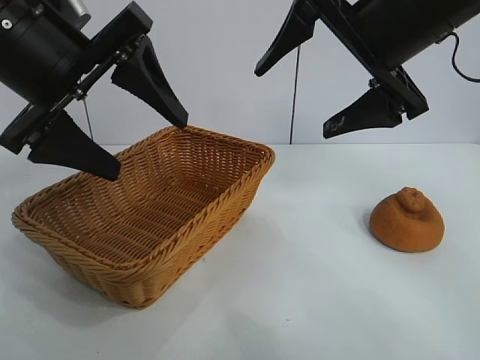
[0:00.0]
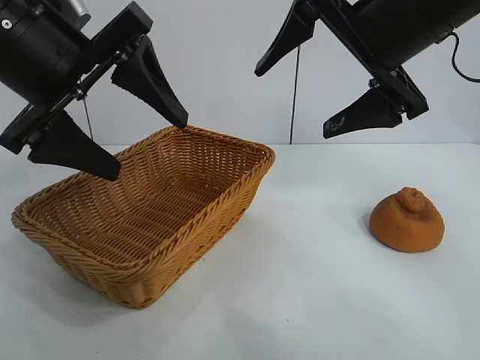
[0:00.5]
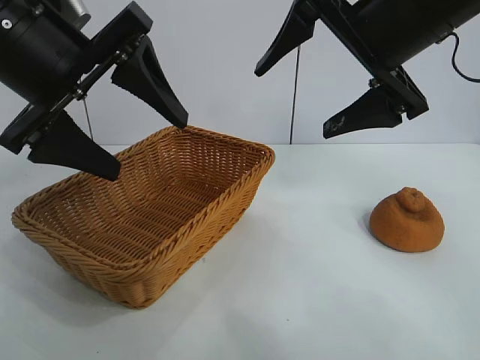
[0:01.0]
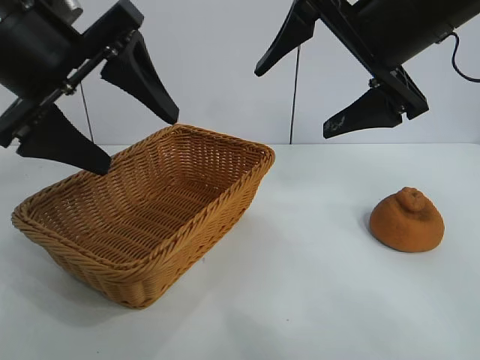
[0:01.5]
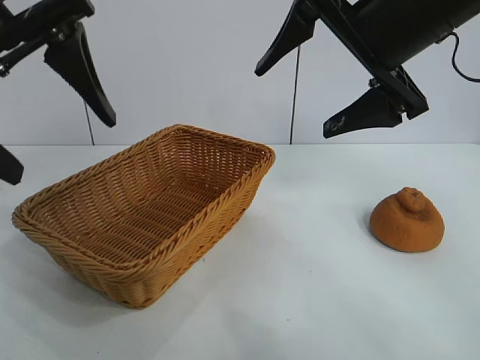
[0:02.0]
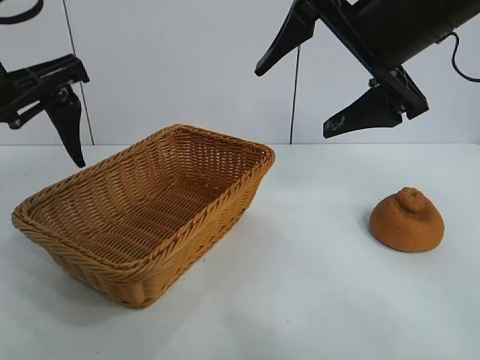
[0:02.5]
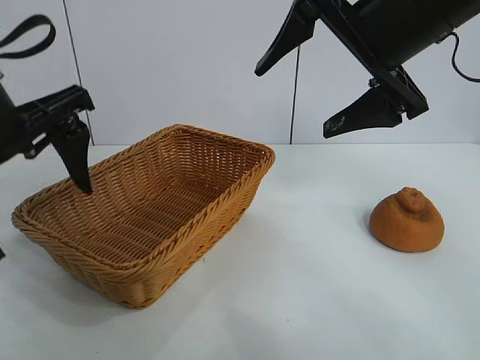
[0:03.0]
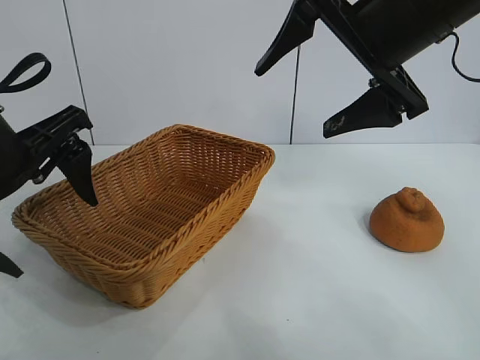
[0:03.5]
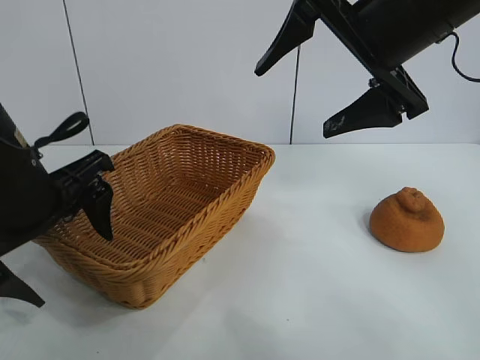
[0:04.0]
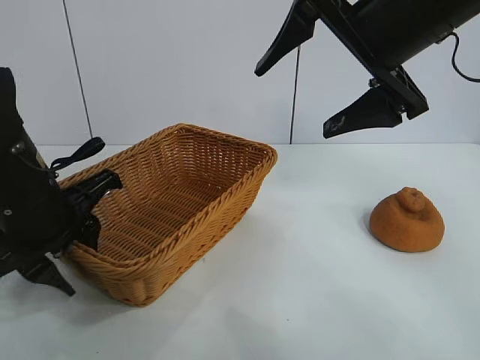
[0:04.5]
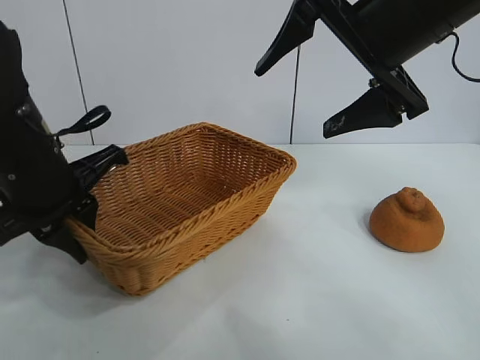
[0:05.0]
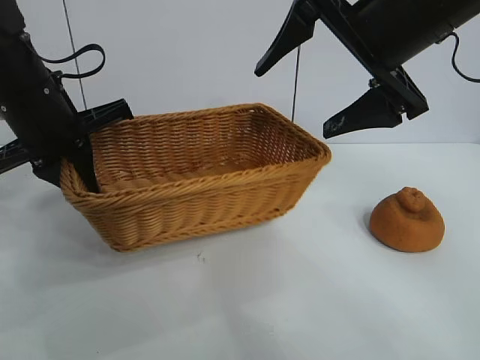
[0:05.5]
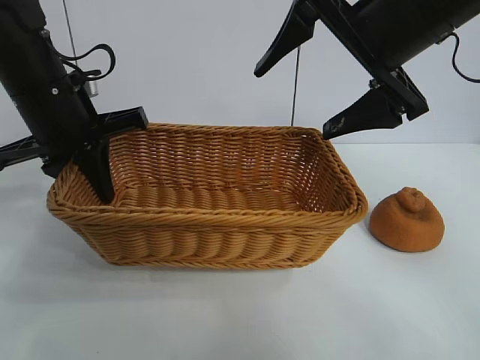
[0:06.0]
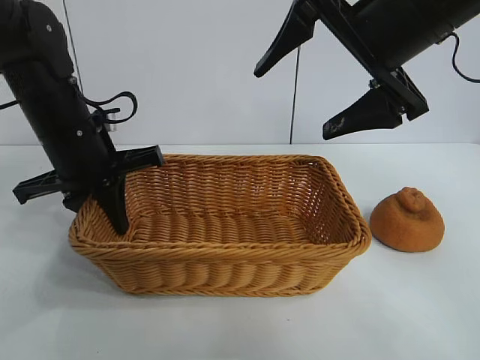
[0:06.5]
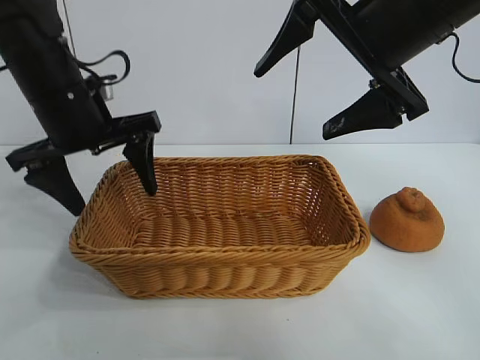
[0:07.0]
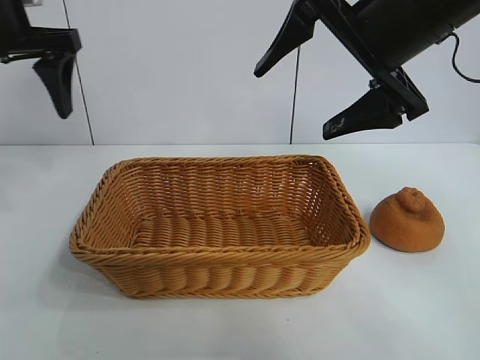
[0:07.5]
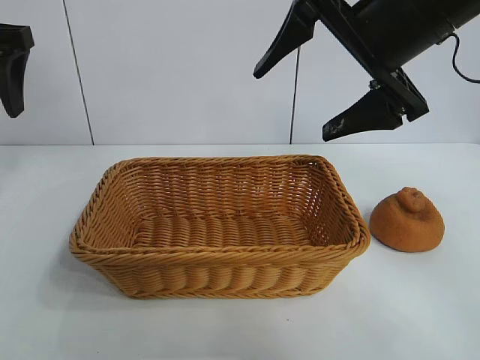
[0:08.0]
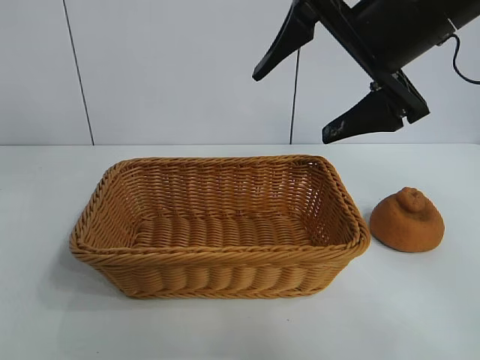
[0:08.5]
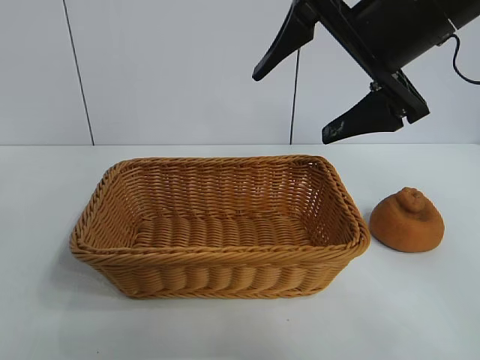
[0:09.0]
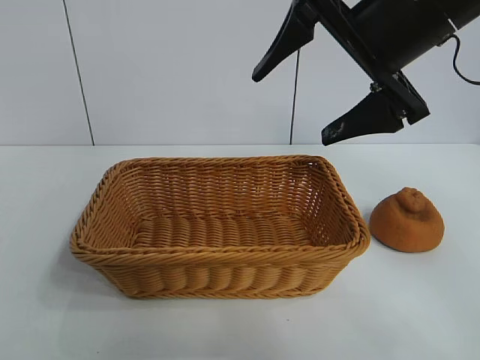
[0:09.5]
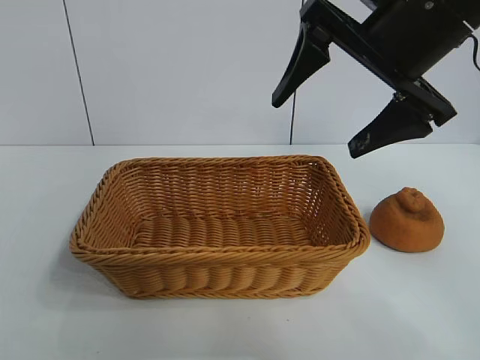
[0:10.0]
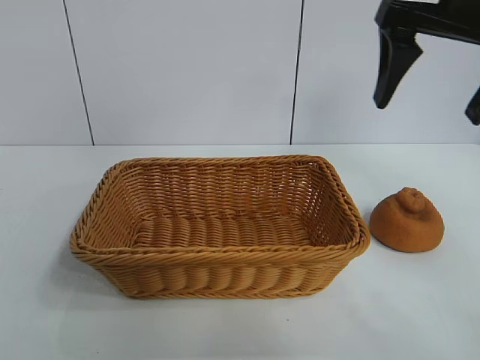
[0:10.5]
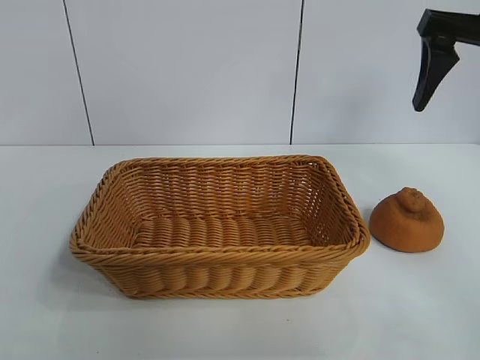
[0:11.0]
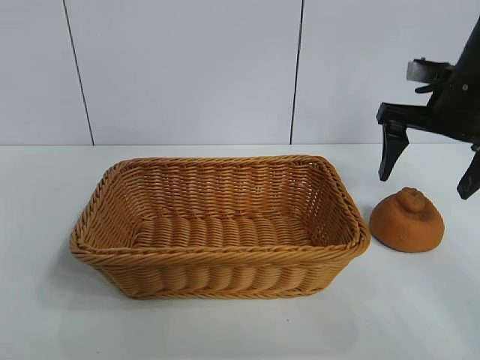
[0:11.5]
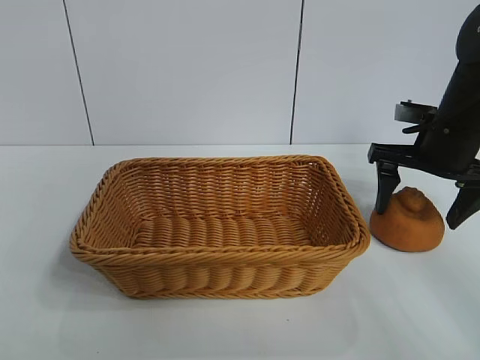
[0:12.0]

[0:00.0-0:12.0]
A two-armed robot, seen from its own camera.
Task of the whole recording: pick up the orange and put it into the basket.
Step, 0:01.5 to 0:04.5: Grasp the basket with left gripper.
Step, 0:05.0 to 0:07.0: Place the basket in the center of view with left gripper.

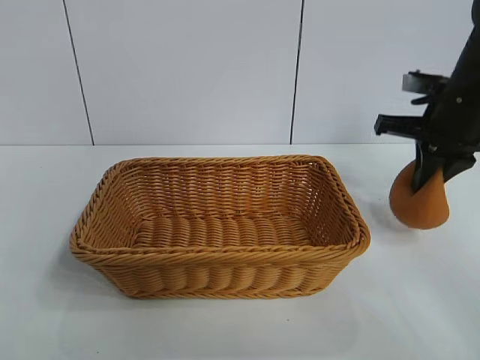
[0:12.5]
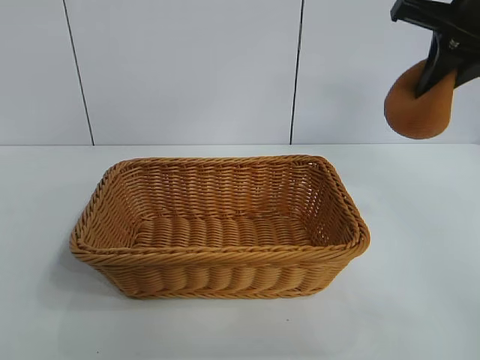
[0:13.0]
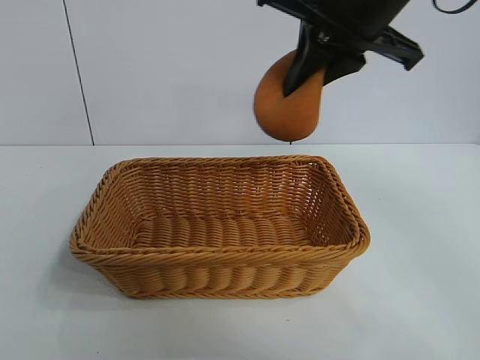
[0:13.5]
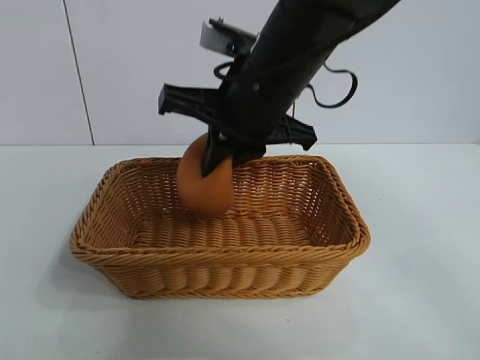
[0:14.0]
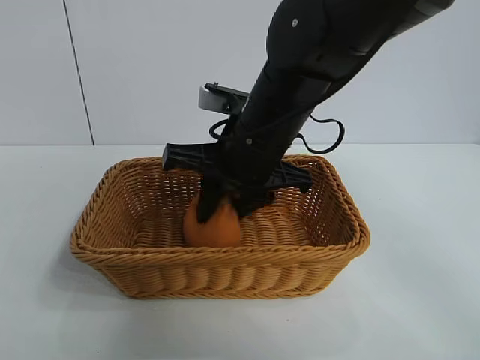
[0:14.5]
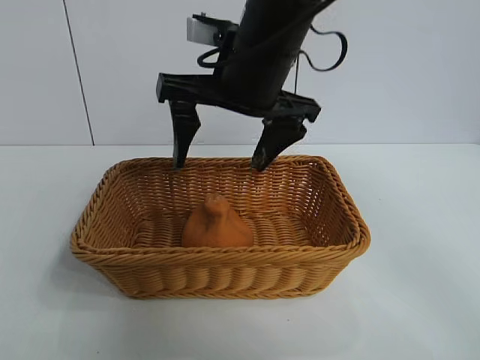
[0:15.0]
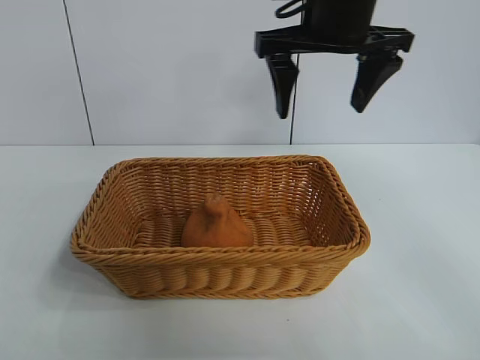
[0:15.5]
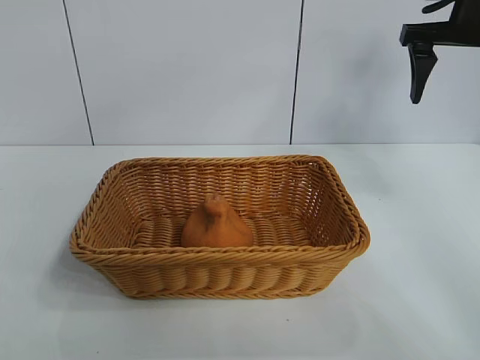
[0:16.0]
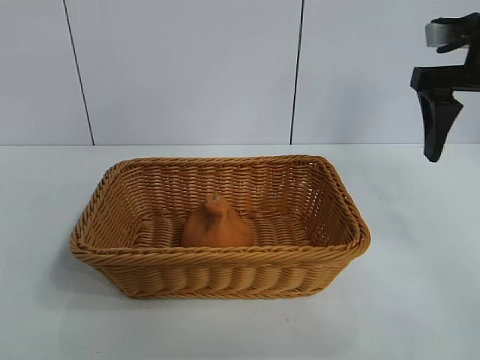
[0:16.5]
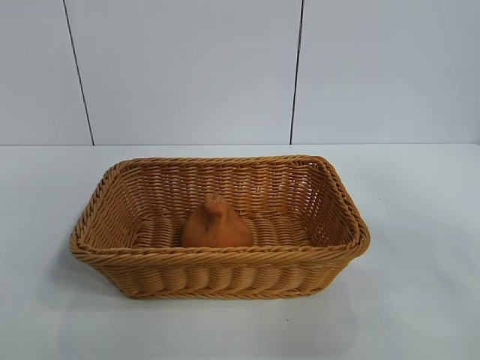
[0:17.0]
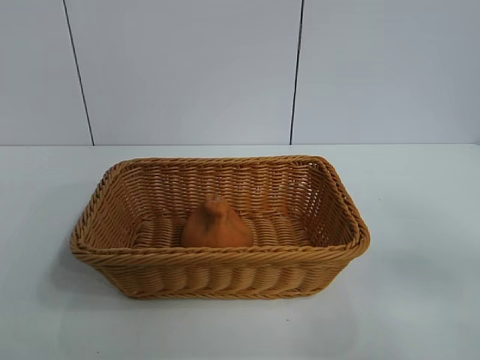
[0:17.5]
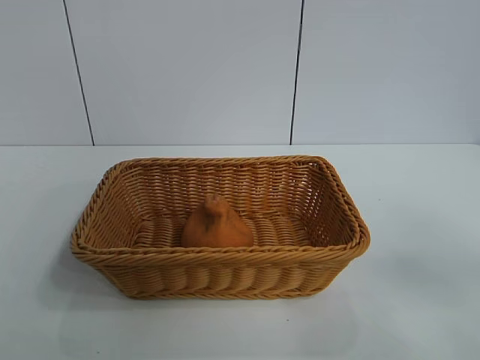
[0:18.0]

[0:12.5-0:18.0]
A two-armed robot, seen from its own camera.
Task of the whole recording: pick up the orange and put it into the basket.
Step, 0:12.5 to 0:15.0: Place the orange in the basket with right gripper.

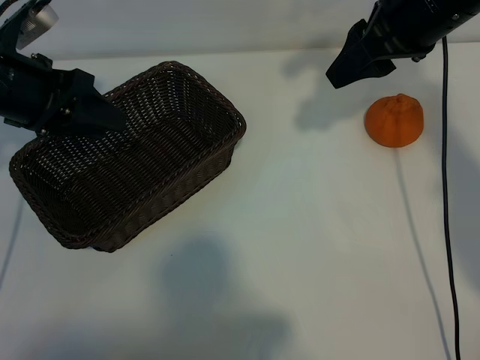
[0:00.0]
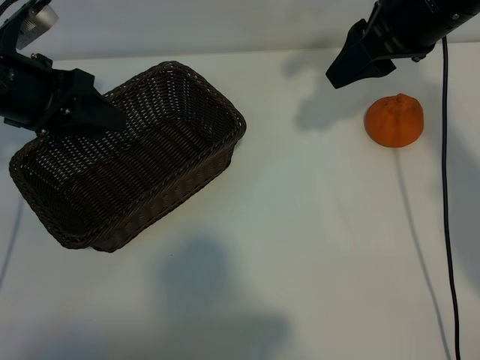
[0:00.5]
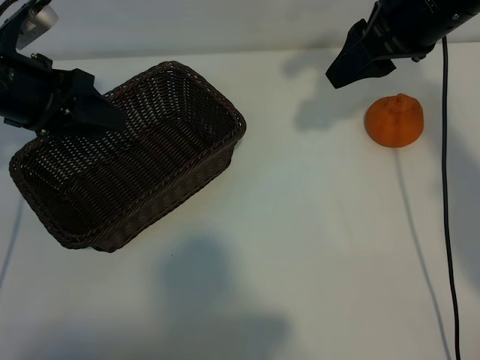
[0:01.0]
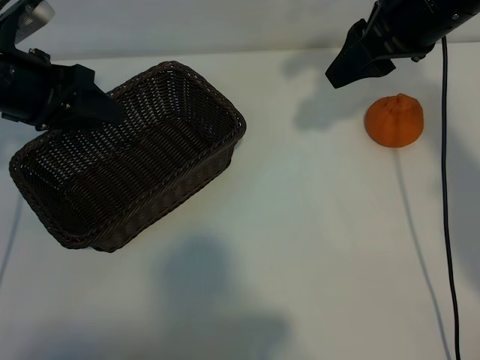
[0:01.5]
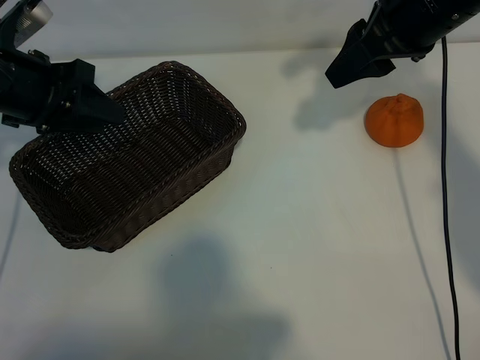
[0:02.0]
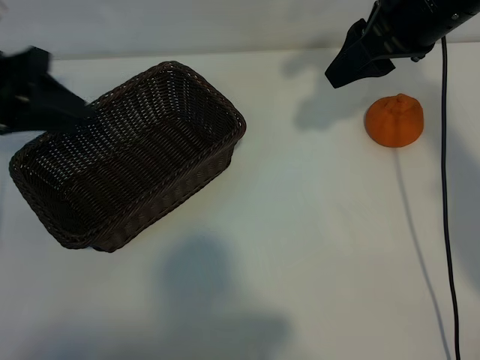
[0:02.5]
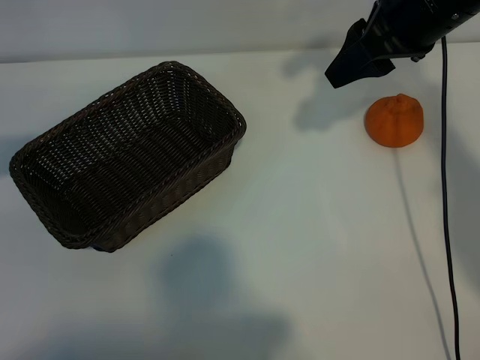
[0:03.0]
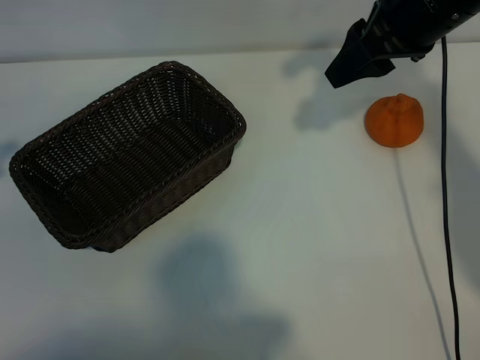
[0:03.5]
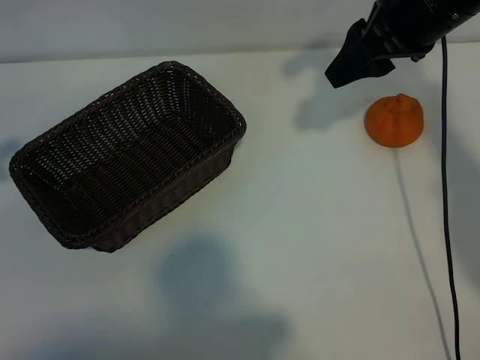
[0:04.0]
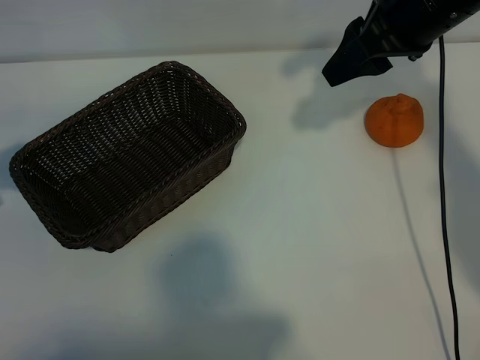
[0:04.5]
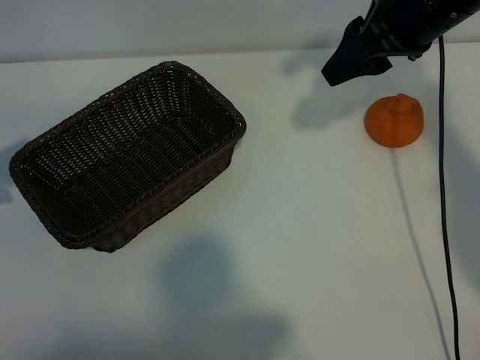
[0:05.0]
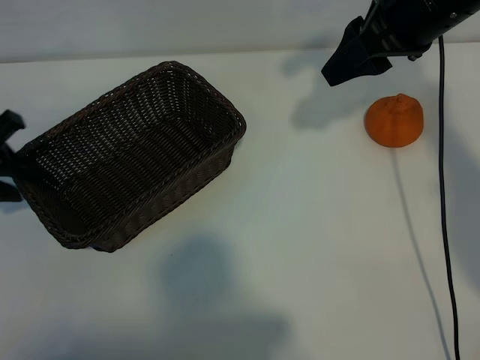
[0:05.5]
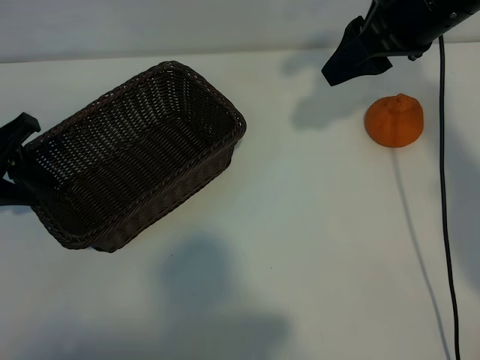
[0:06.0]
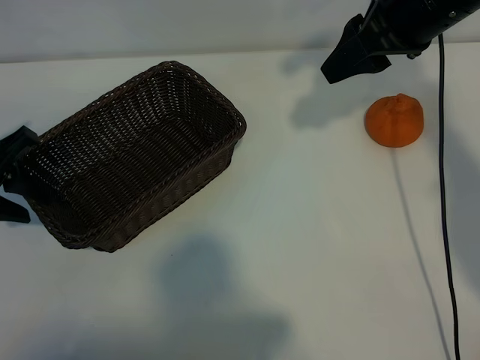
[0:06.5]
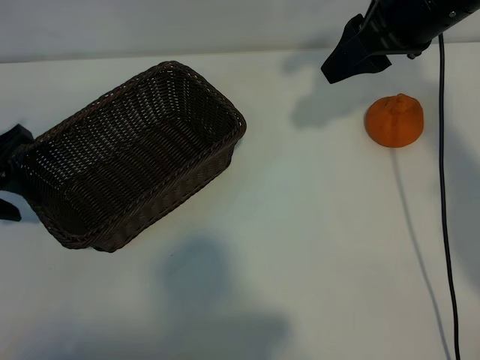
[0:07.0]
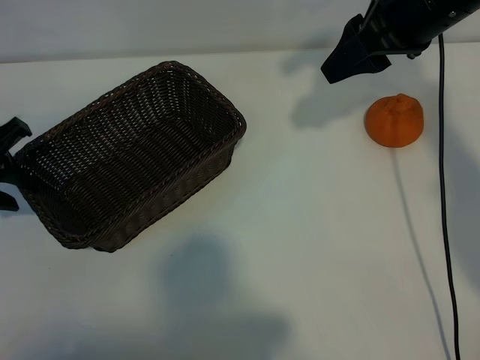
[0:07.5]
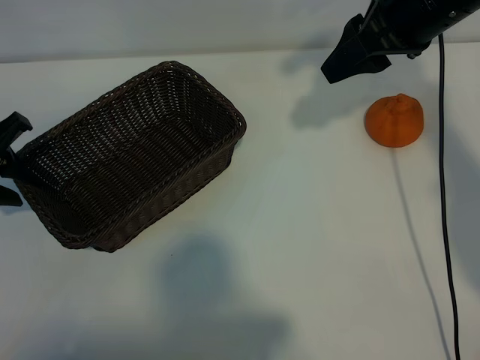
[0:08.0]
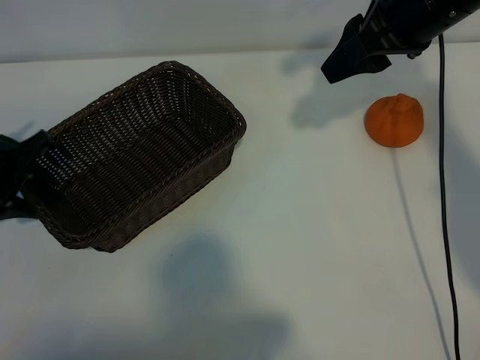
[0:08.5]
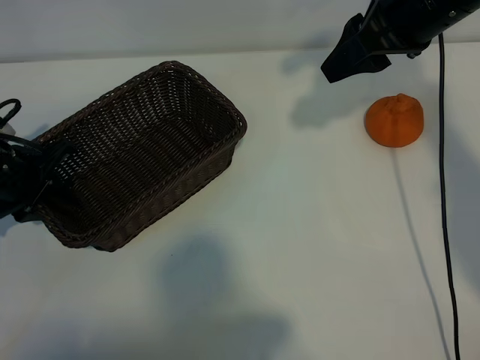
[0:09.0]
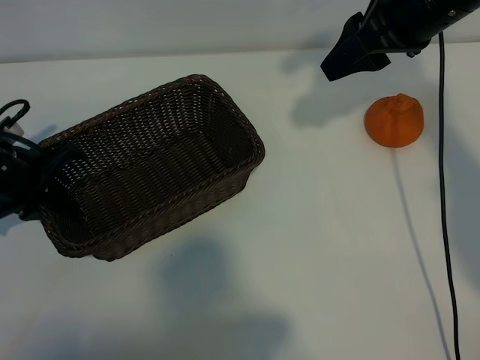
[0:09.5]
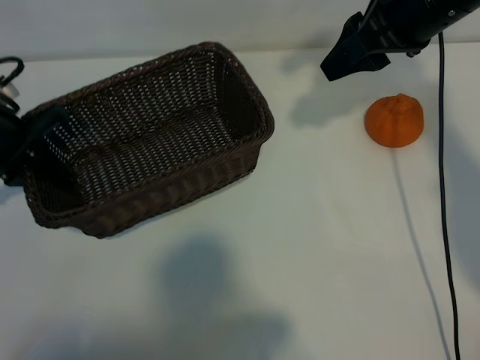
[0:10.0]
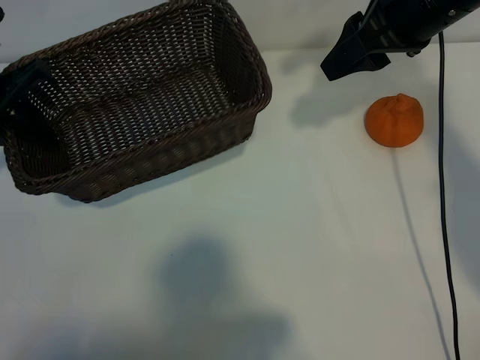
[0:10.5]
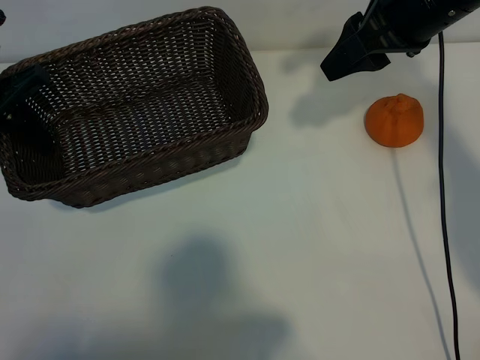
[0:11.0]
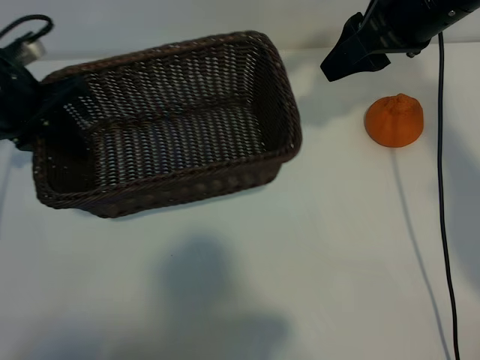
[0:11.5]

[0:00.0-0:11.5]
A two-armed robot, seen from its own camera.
Task of the whole recording: pick up the orange and put it into the basket.
Step, 0:01.5 to 0:09.0: Grasp the basket with left gripper.
